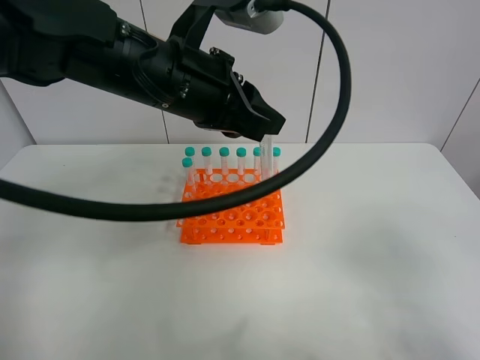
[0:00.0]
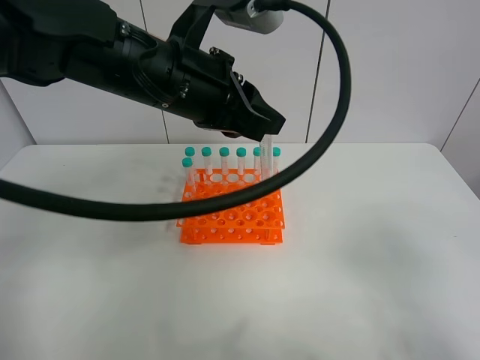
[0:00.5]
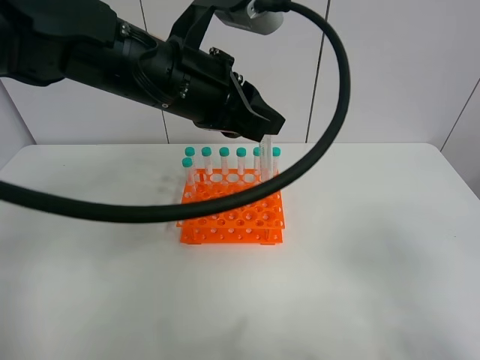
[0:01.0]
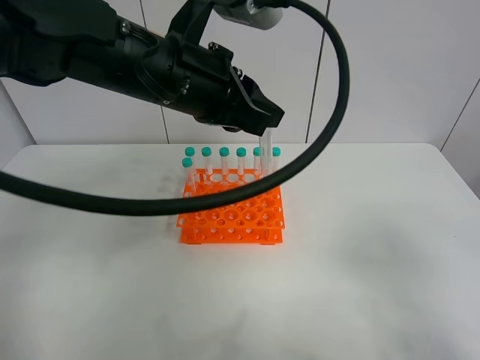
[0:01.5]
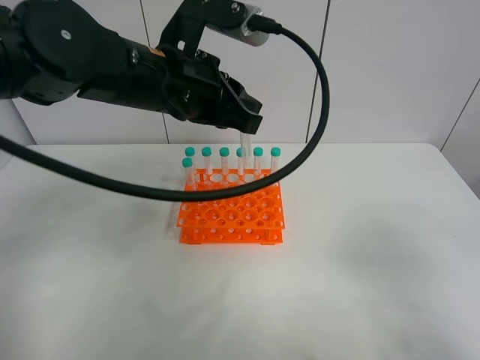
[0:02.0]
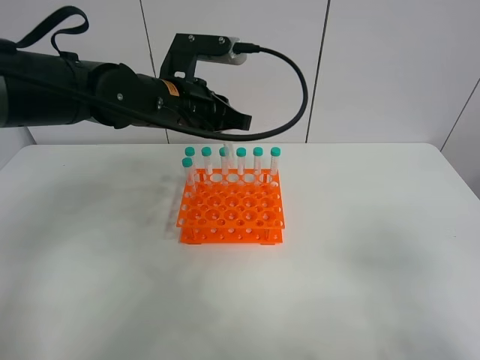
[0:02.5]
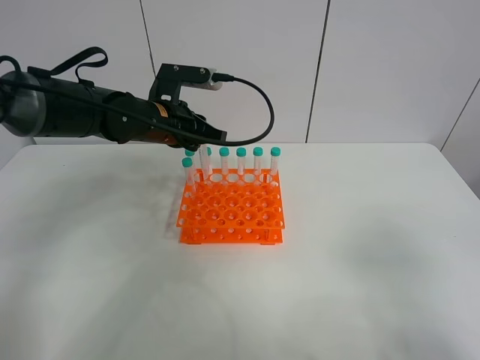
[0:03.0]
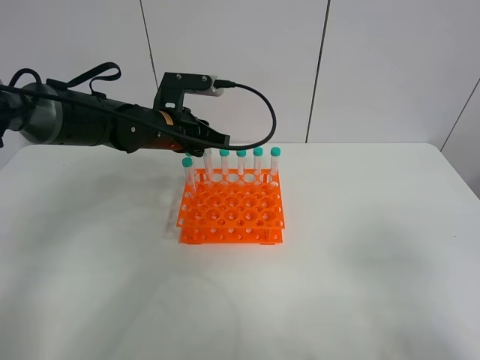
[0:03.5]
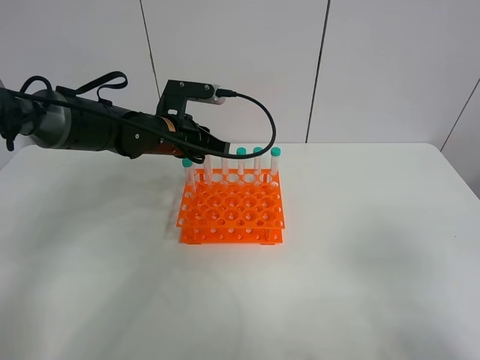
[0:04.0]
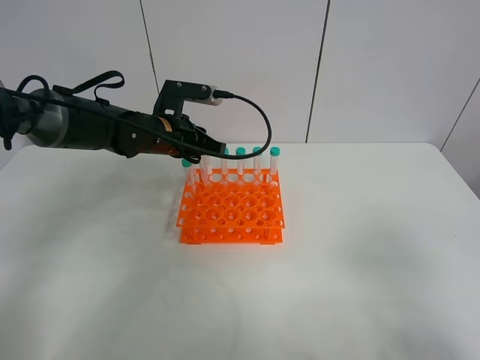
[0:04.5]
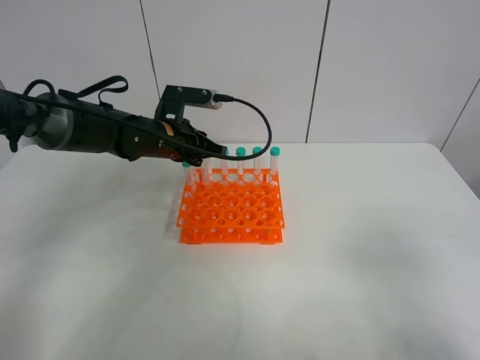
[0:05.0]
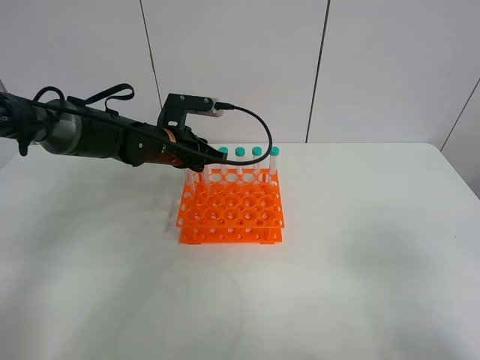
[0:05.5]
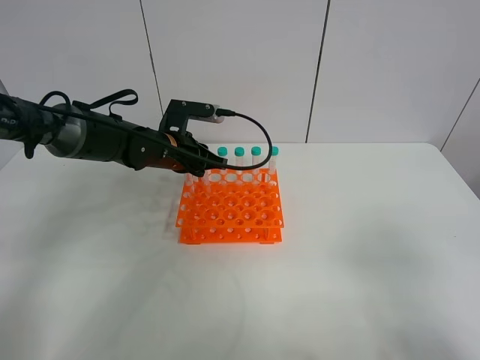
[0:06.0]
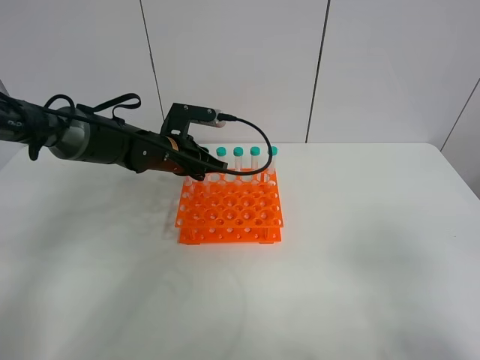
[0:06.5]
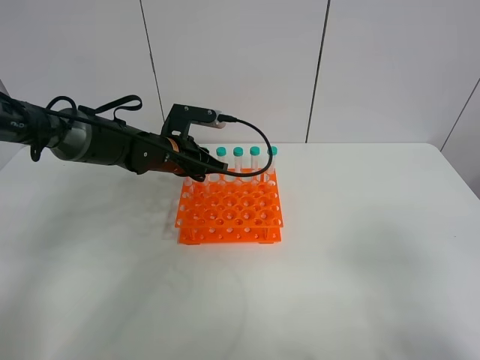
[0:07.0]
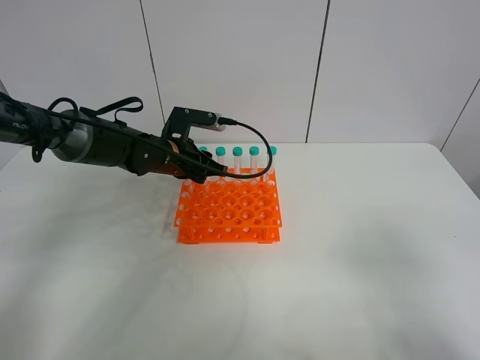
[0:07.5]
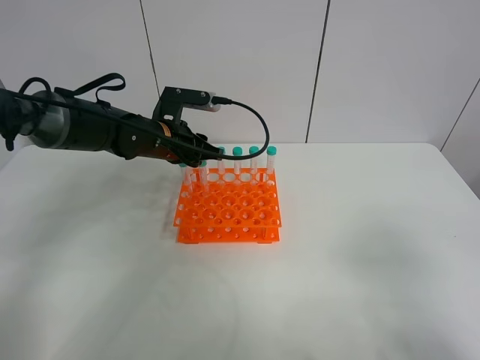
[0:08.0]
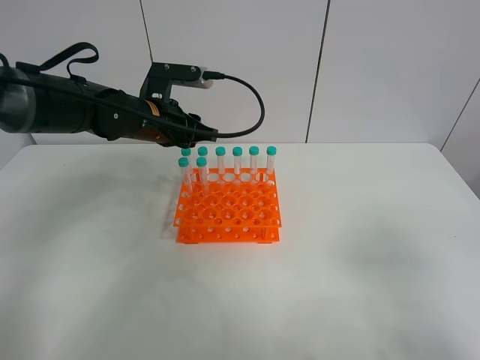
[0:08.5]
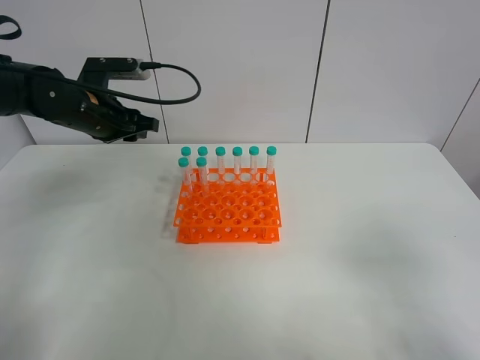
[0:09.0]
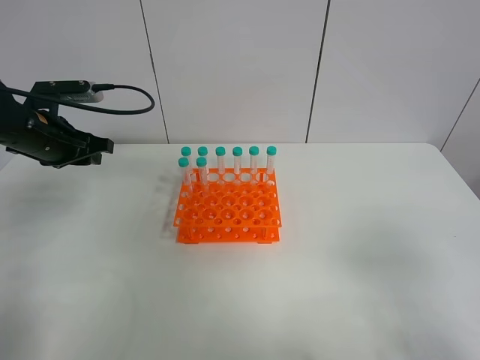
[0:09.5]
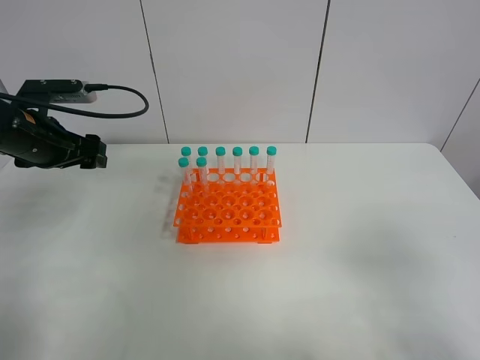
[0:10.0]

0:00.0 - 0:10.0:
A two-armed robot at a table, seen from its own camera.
Task of the whole recording: Put the test tube on the table back onto the test tube rack.
Step, 0:00.0 - 0:07.0: Place the test tube on the test tube rack with the left gripper.
0:00.0 - 0:02.0: The grippers move only a little.
0:02.0 - 0:04.0: The left gripper shifts approximately 15 cm downward and forward.
0:04.0 - 0:08.0: The grippers move only a little.
0:08.0 - 0:10.0: The left gripper goes some 15 cm to the left and backward, and opens its fingers.

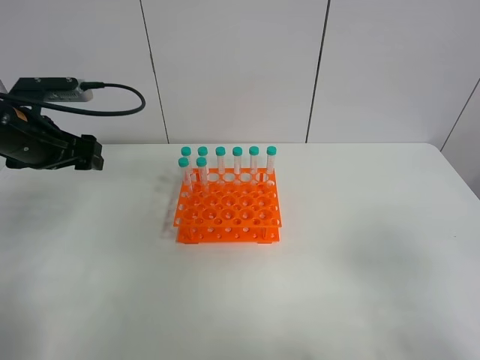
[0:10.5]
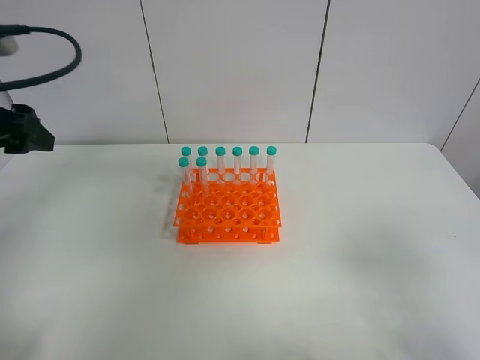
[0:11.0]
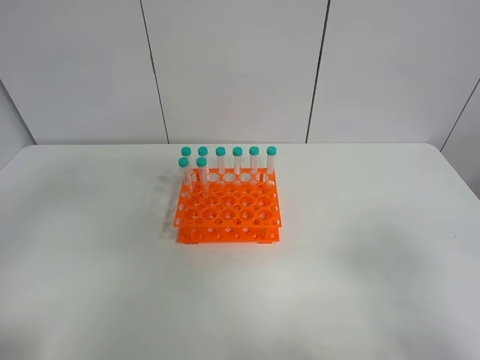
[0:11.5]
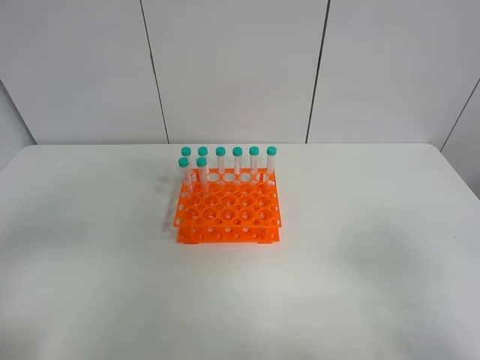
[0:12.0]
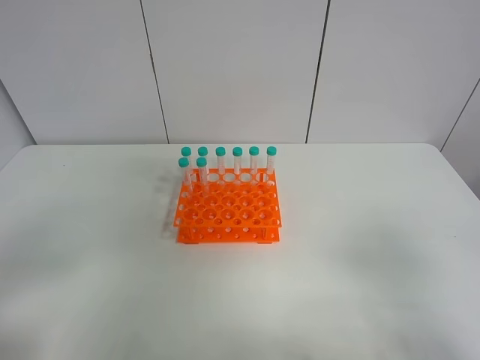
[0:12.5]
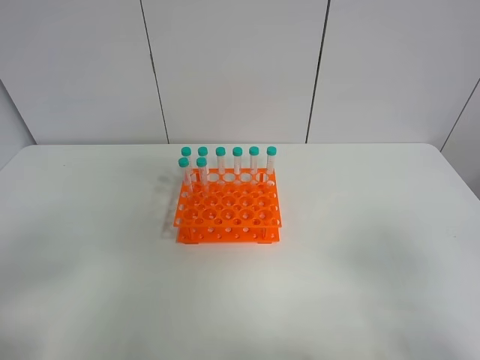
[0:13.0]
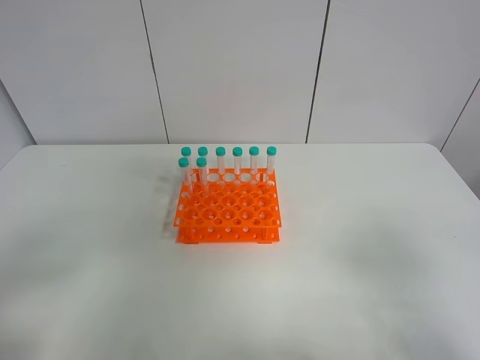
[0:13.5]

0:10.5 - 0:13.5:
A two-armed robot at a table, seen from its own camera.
Task of the whole recording: Put the test tube on the table back onto the test tube rack.
0:10.5 - 0:12.0: The left gripper goes roughly 30 cm backward.

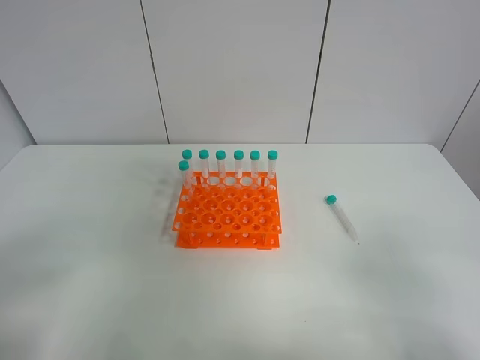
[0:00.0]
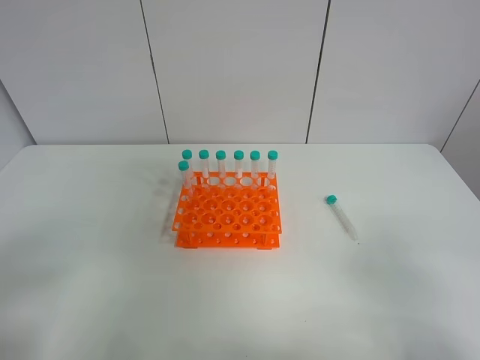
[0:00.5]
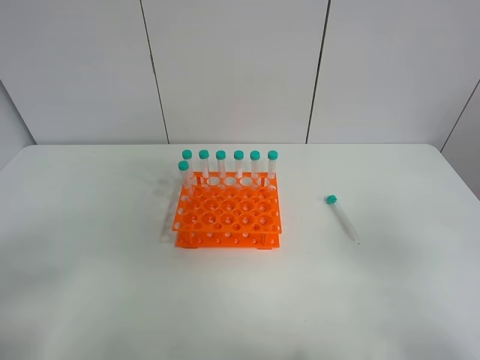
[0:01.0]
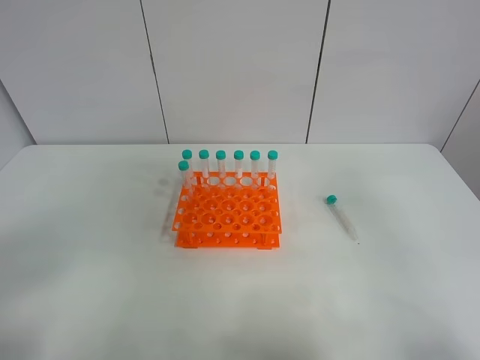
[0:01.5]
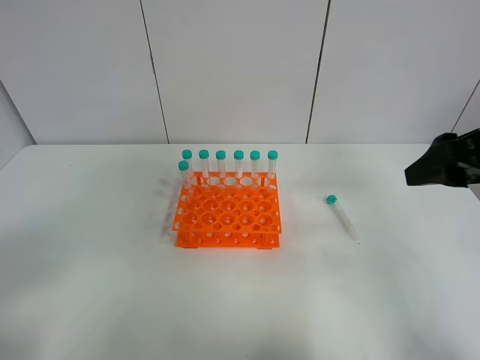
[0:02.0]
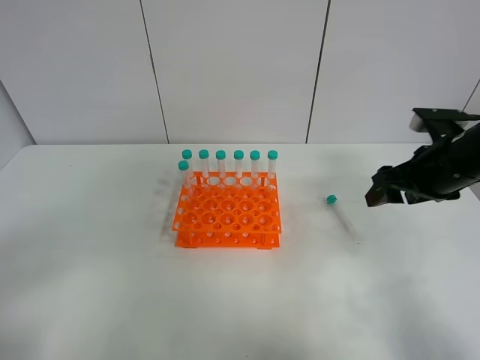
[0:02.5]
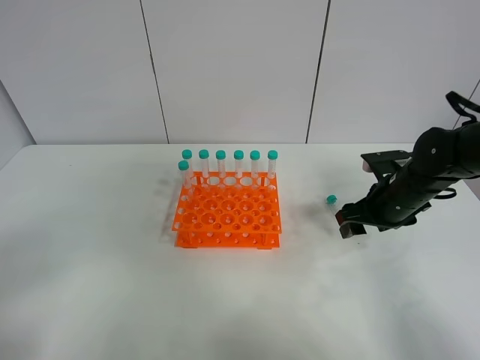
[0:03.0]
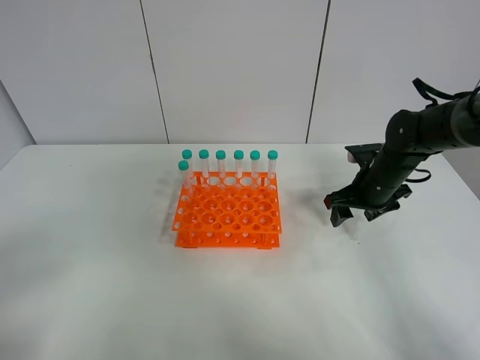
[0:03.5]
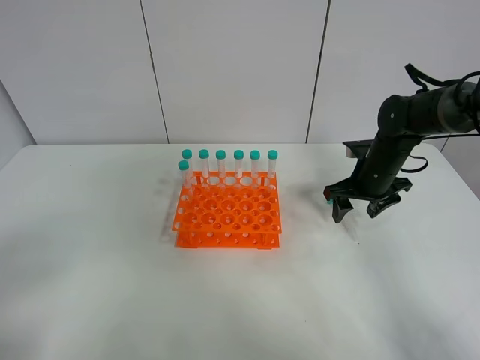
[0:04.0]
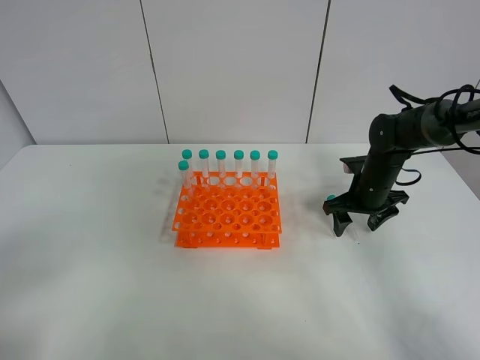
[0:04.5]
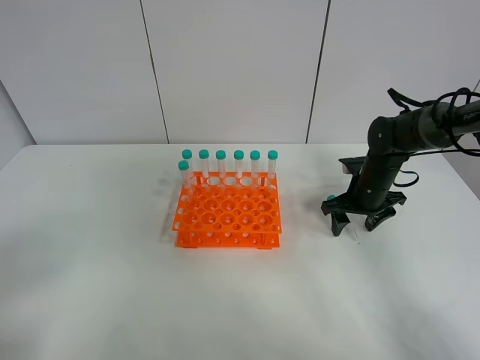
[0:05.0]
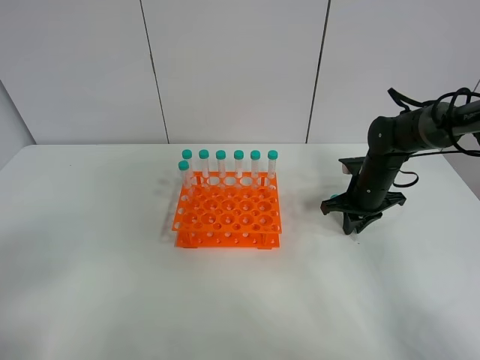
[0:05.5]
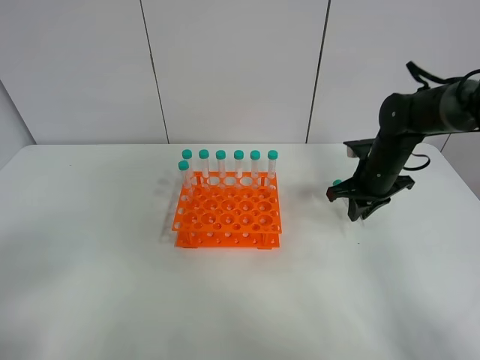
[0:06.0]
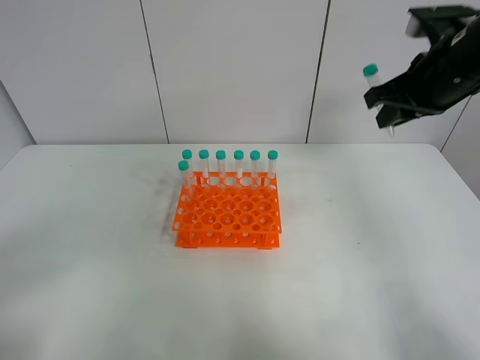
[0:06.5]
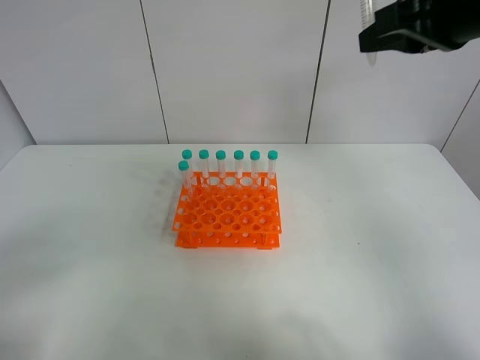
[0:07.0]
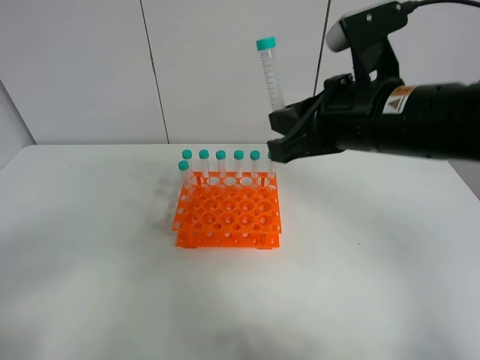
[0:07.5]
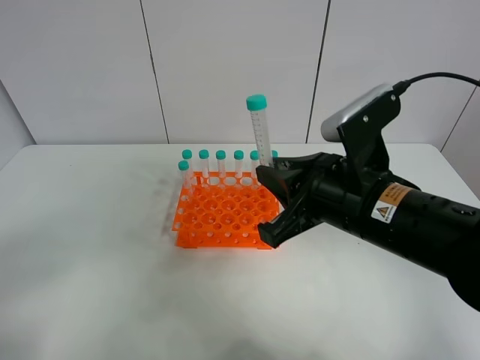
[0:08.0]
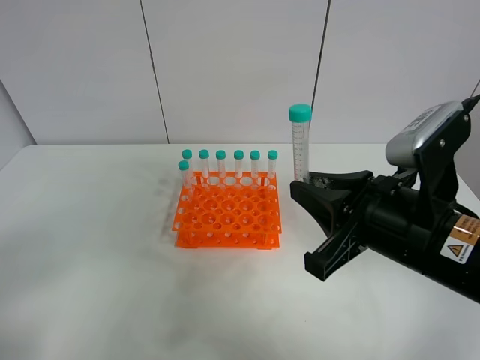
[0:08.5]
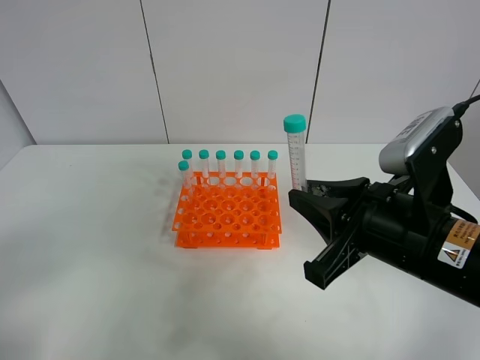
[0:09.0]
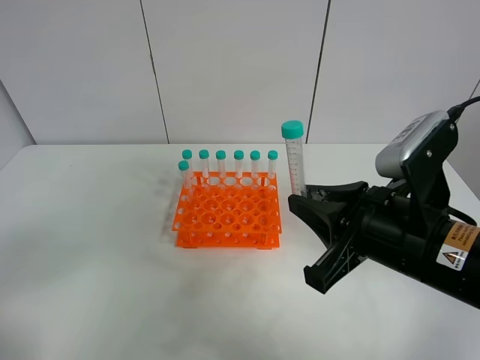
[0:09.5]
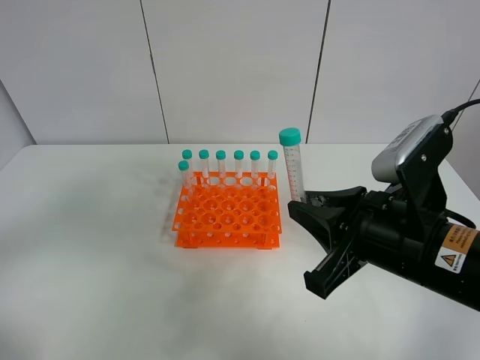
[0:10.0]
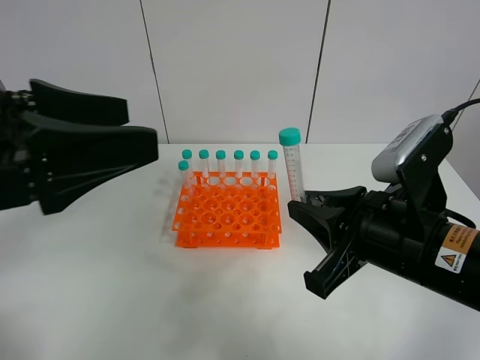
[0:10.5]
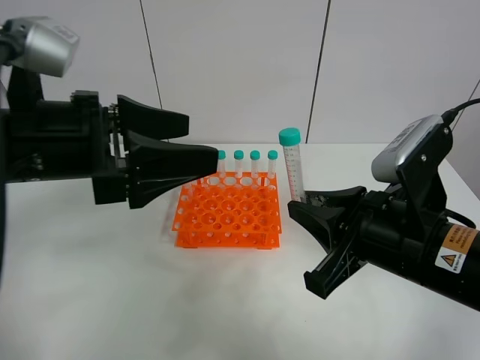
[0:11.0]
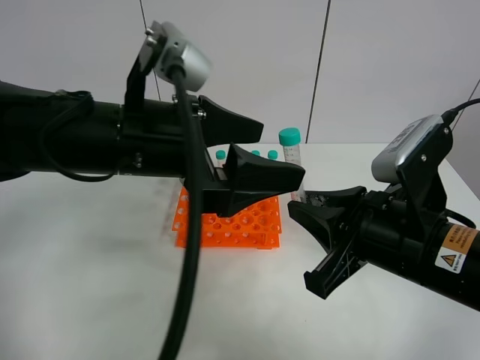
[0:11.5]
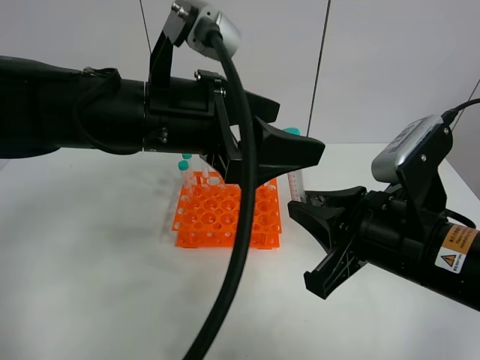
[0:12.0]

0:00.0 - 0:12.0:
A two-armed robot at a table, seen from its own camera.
Task of the whole recording: Put the test tube on the table back onto the test tube rack.
Step, 0:00.0 - 0:06.0: Pick up the test tube with the right gripper.
0:00.0 - 0:02.0: The right gripper shifts some 25 cm forward.
0:02.0 - 0:04.0: The right gripper moves downward and forward, approximately 25 cm.
0:04.0 - 0:06.0: The right gripper closes up.
0:06.0 - 0:08.0: The right gripper travels backward, to the left and upward by approximately 25 cm.
0:08.0 - 0:10.0: The left gripper heads upward, covering approximately 10 cm.
0:10.0 - 0:12.0: The left gripper shifts some 25 cm forward and to the right.
